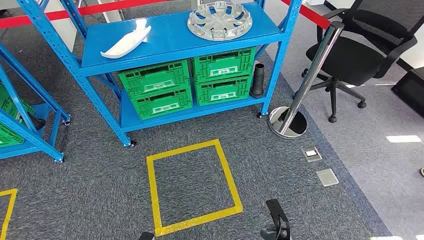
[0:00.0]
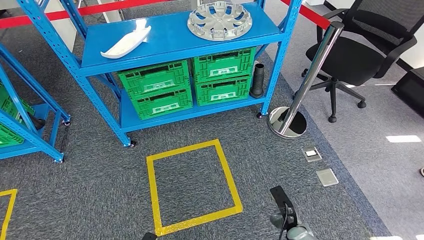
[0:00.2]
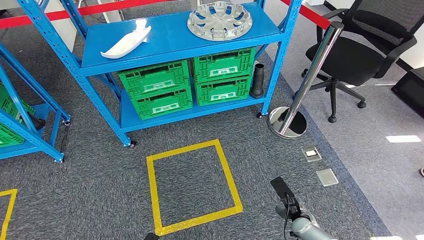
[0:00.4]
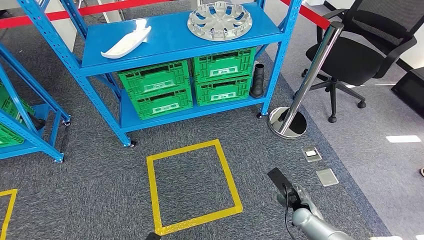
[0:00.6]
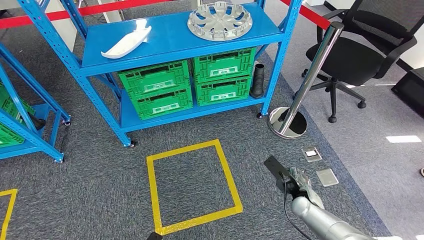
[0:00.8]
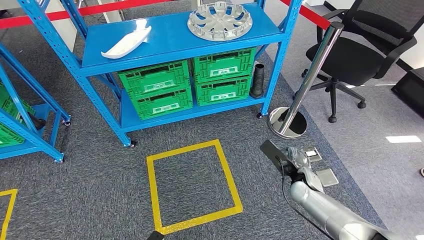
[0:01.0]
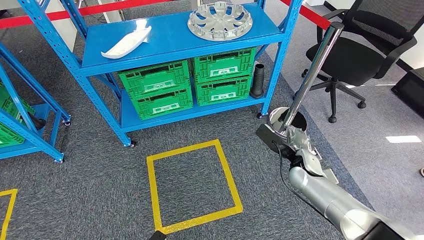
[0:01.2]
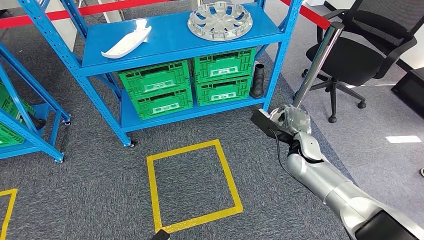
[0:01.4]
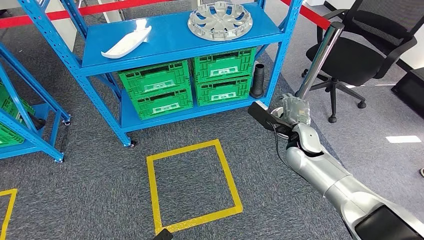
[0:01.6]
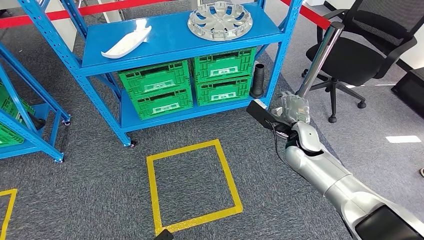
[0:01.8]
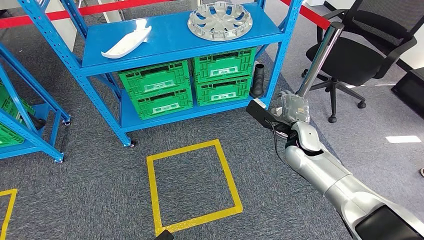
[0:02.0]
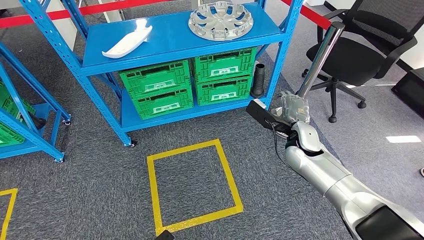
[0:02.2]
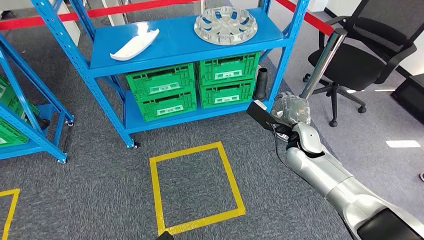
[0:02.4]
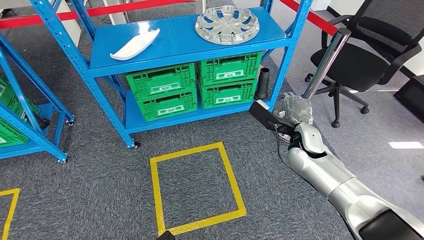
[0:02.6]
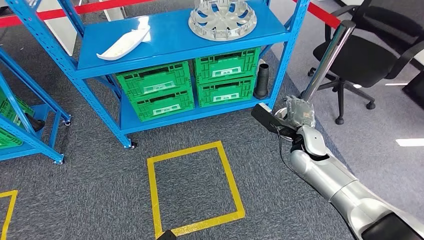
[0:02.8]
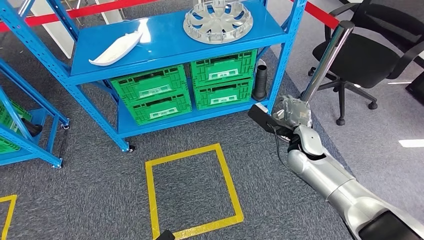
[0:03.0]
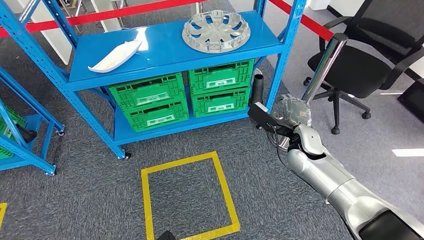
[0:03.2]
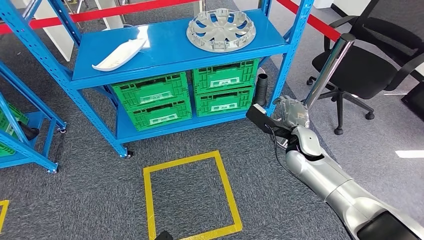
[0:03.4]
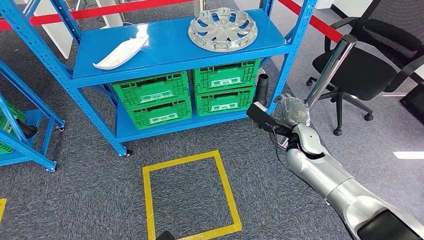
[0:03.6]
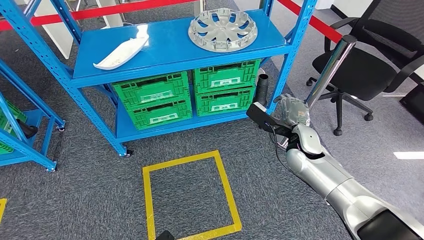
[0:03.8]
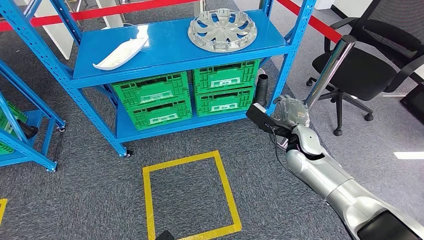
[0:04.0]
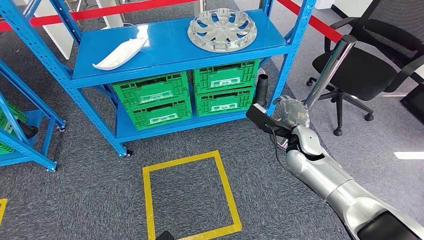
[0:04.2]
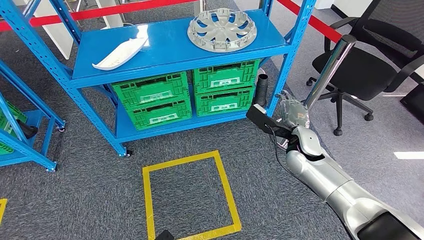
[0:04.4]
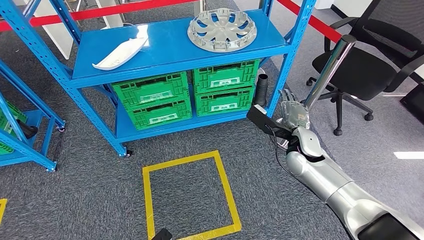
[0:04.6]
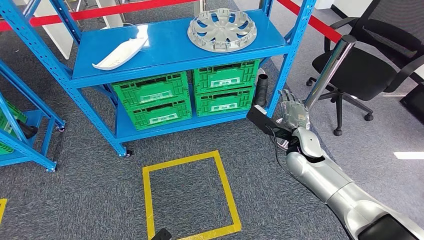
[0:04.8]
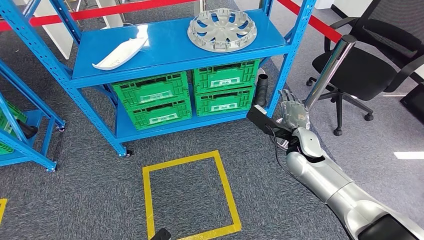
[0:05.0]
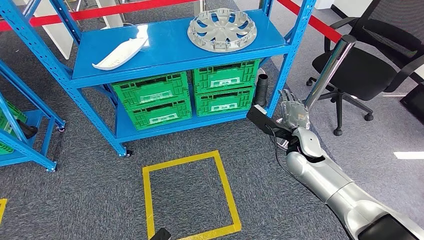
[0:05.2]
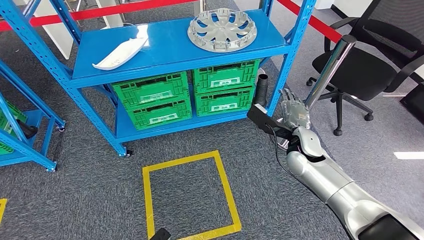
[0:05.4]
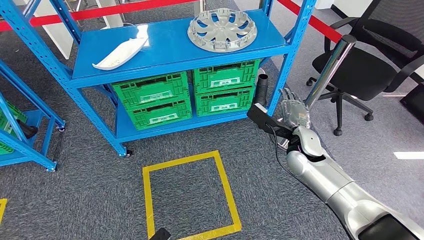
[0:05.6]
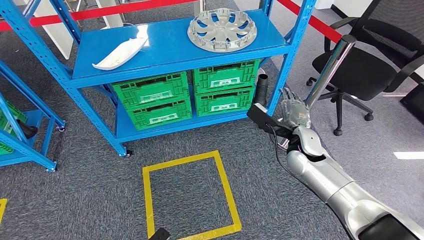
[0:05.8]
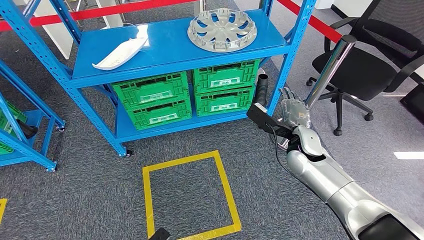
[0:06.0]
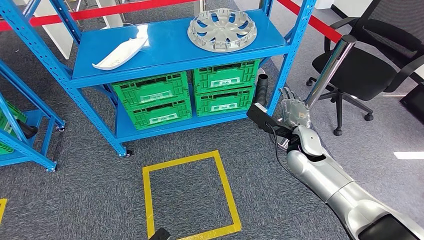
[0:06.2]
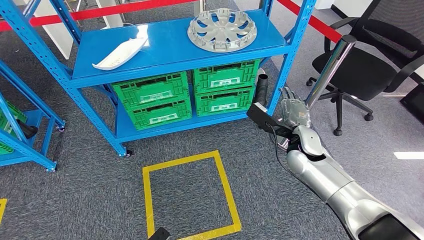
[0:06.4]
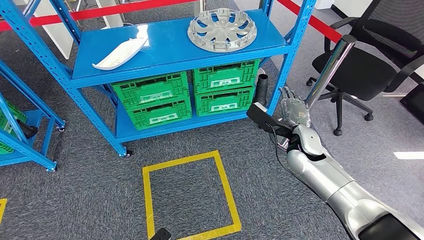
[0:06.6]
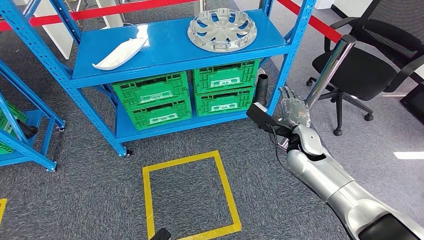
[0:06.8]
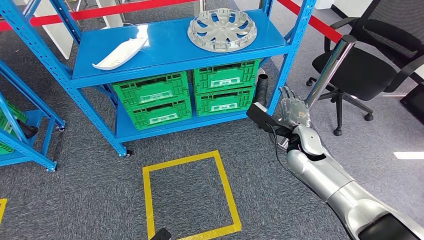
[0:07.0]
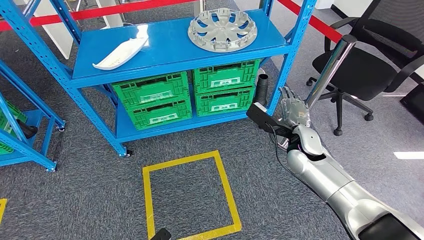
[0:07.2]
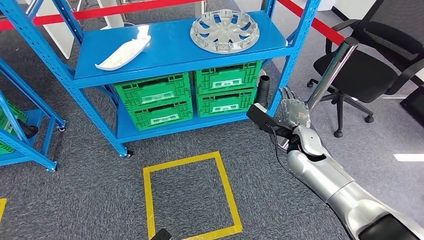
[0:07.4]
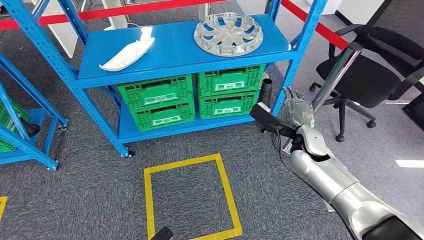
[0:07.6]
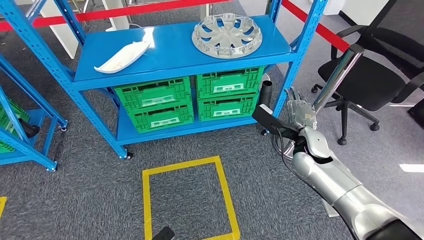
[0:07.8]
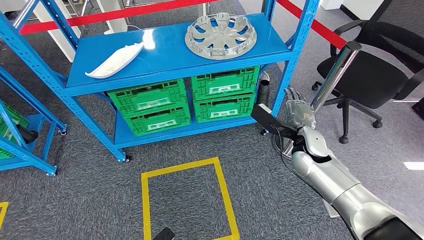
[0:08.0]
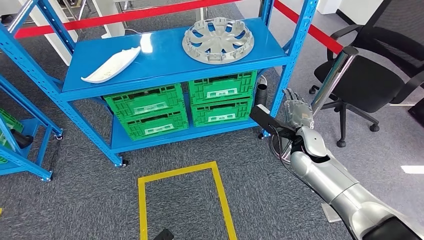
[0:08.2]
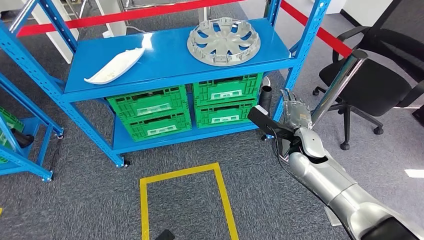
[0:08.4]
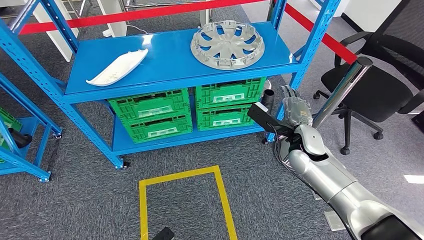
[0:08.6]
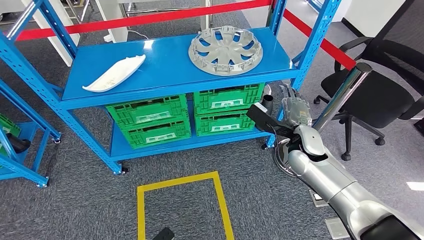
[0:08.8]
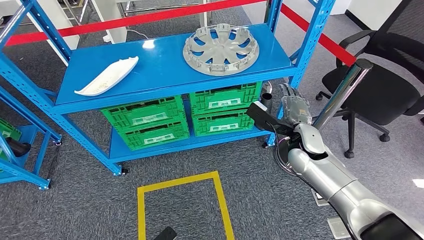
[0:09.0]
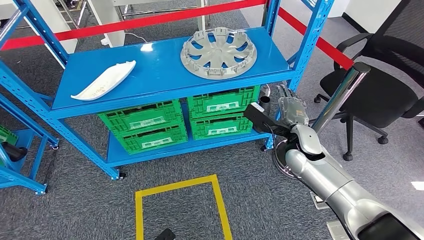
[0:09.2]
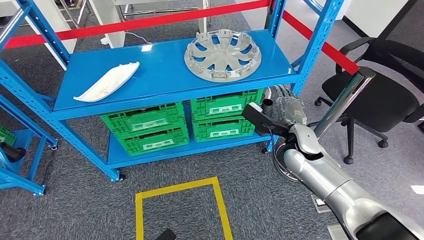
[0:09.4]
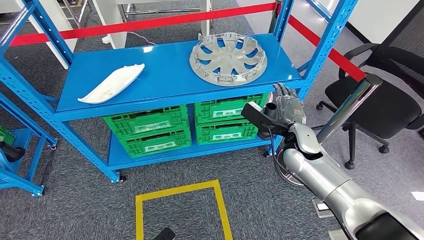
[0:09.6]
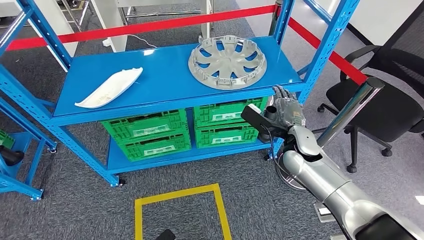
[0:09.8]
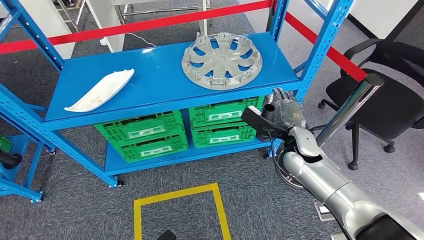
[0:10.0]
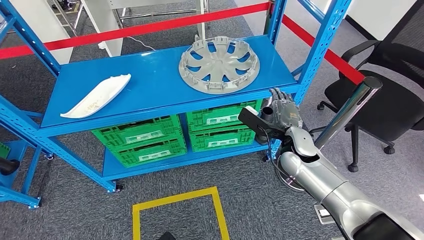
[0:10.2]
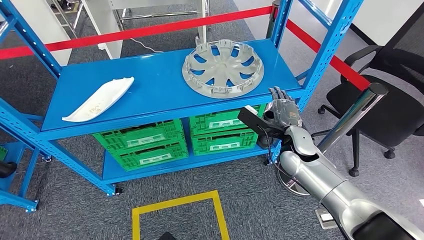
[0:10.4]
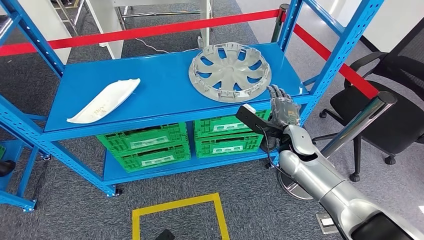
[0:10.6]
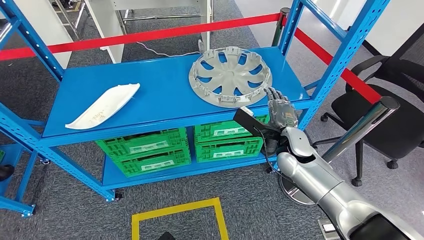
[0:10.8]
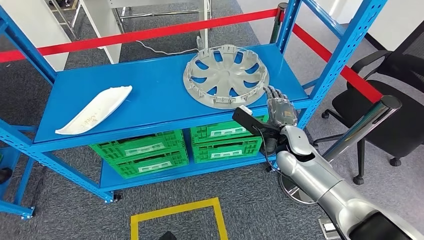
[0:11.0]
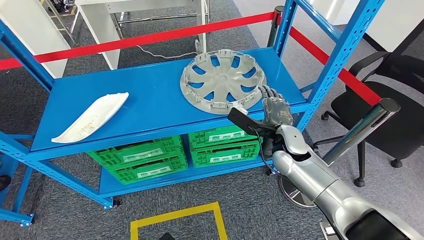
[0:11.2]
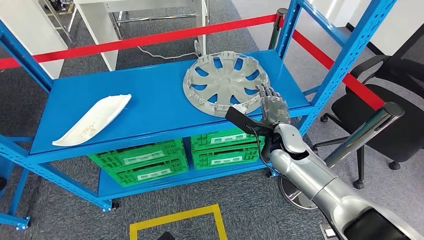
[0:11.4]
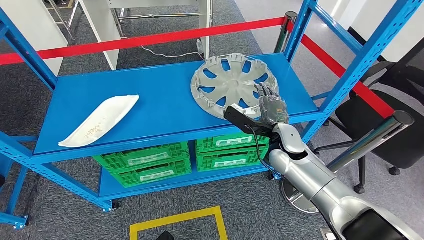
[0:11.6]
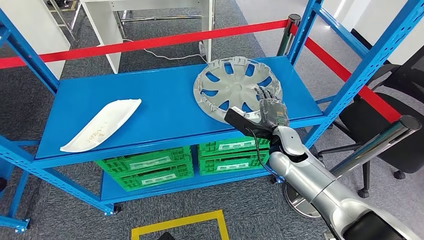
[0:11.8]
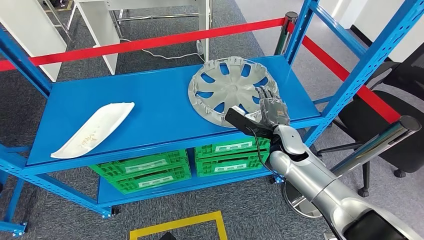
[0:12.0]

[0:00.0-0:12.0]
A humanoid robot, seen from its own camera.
0:04.4 to 0:06.0: Both hands stay put.

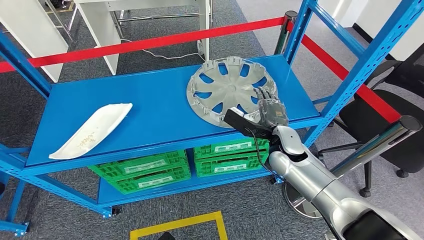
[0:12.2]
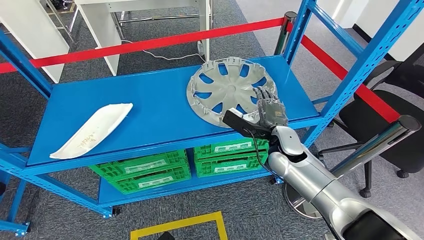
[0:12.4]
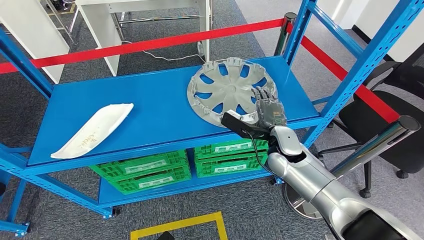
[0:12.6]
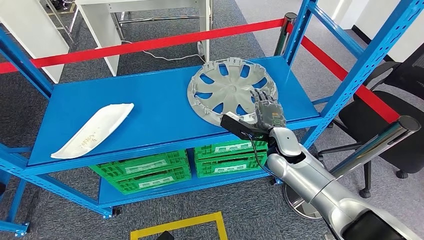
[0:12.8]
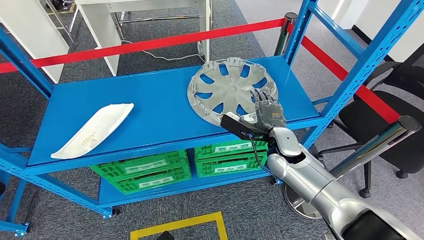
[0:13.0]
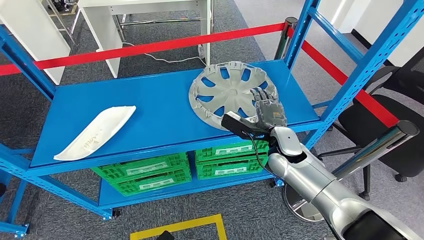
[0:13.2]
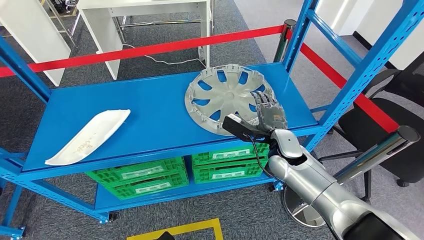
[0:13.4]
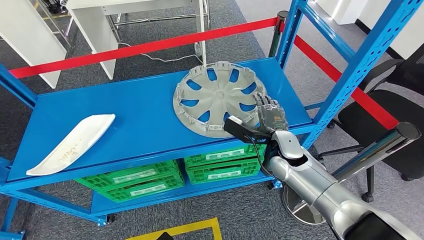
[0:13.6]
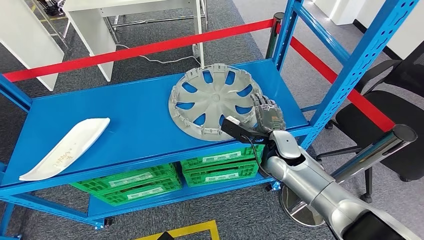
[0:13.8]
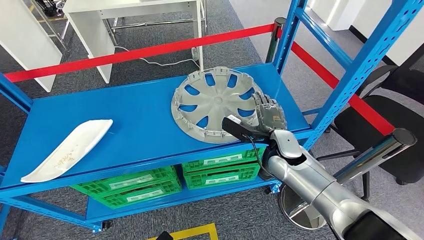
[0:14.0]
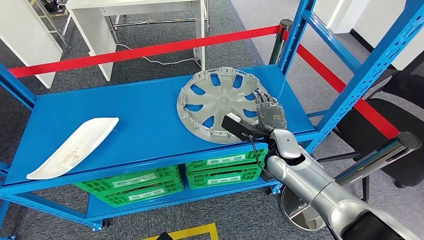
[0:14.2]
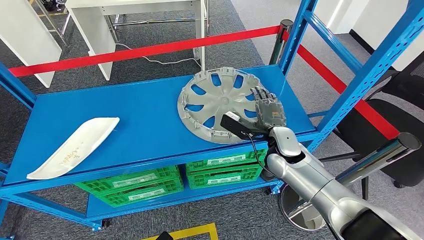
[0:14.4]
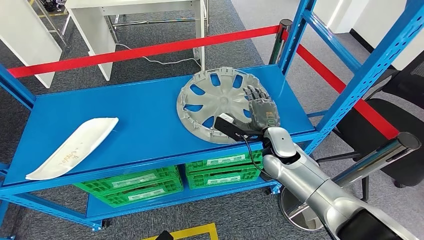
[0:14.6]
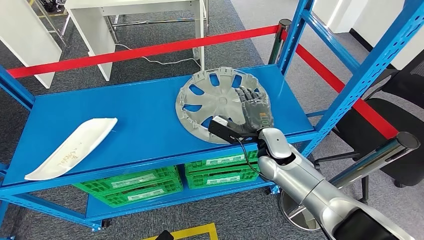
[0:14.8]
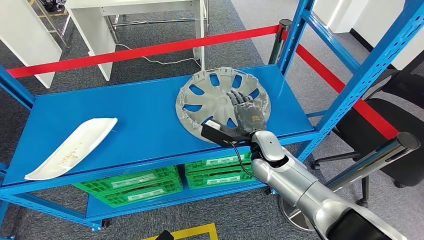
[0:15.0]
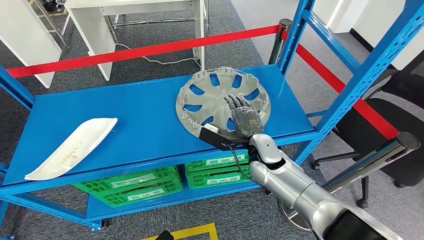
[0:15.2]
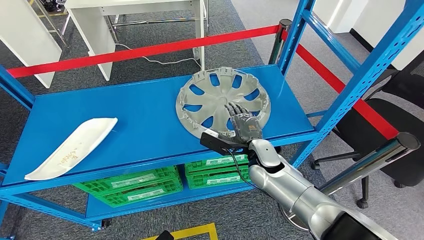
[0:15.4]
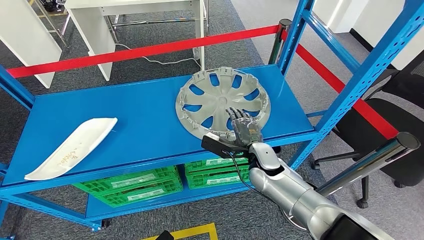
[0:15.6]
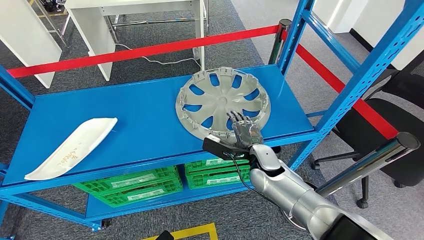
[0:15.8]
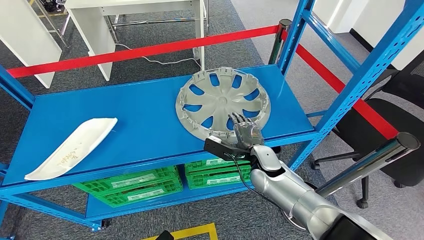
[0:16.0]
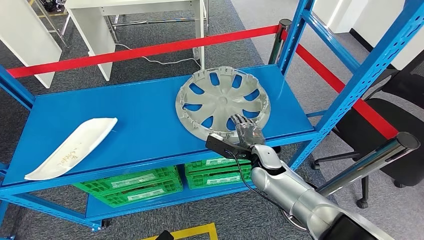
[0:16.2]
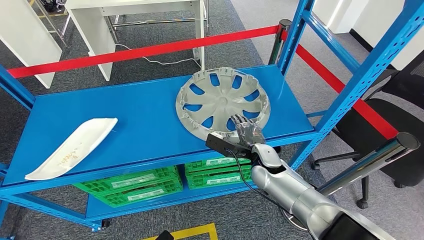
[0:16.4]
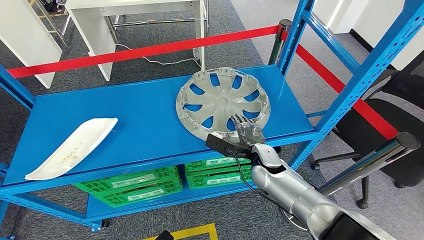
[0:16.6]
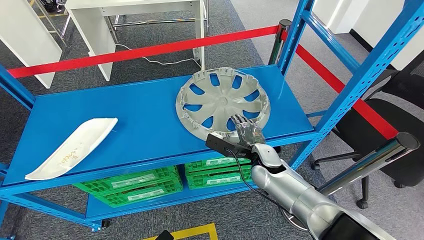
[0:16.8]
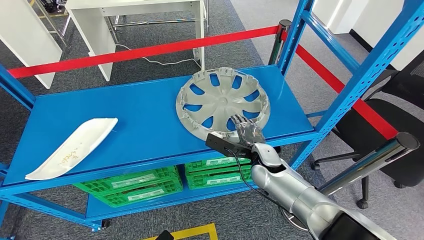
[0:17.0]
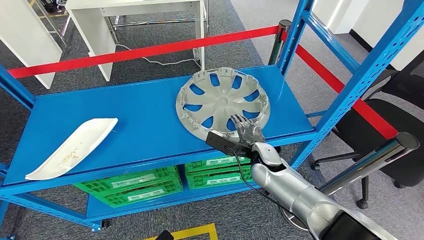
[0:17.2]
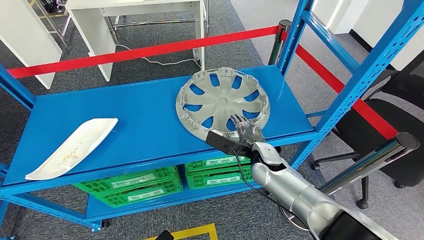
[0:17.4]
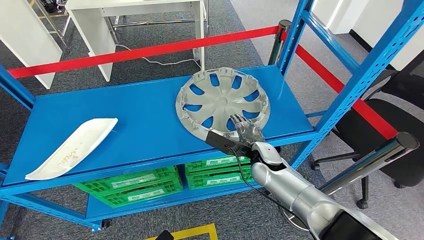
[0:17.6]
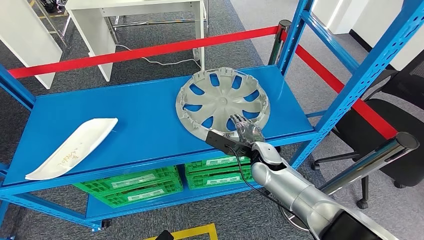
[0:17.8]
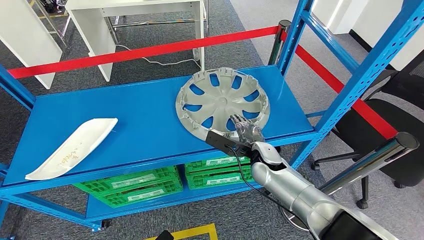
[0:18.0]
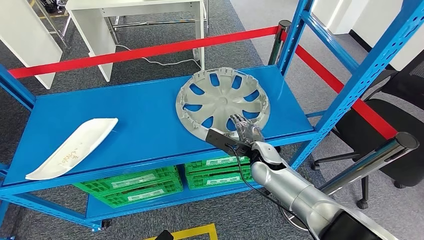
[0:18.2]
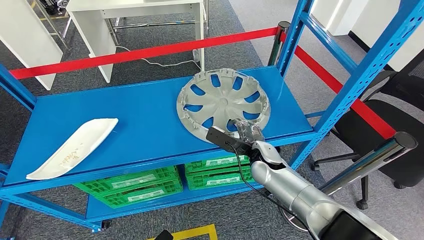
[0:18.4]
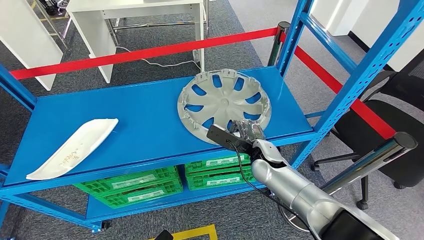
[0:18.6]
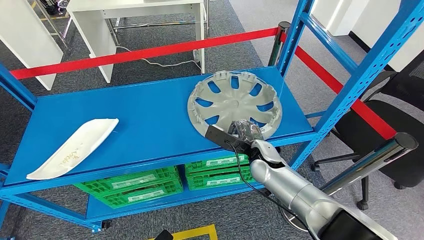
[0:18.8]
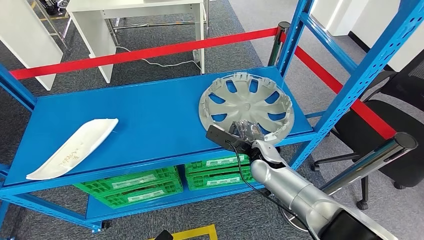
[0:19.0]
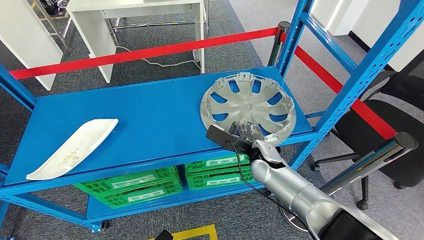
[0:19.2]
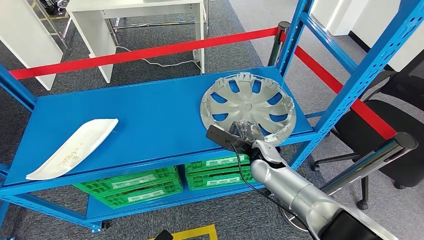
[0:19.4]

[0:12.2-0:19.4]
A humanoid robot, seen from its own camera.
0:15.0 to 0:16.6: There are only small adjustments of the hands.
0:16.6 to 0:18.0: Neither hand changes place.
0:18.0 to 0:19.4: The hands stay close to where they were, moving slightly.